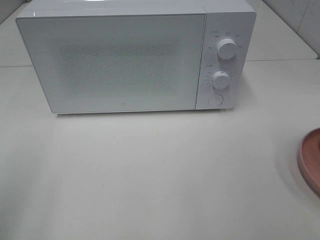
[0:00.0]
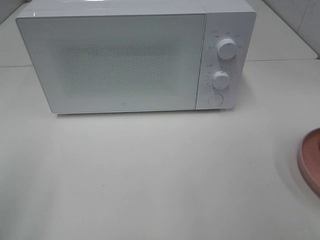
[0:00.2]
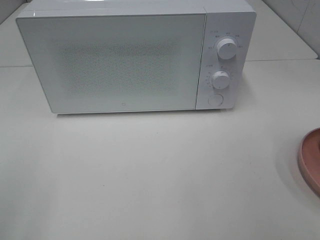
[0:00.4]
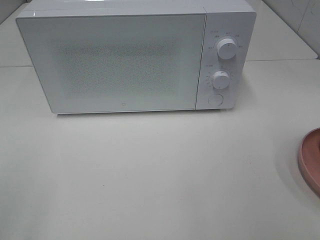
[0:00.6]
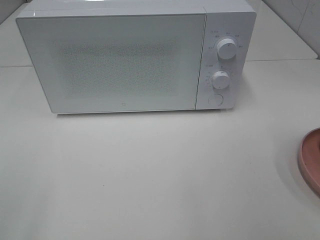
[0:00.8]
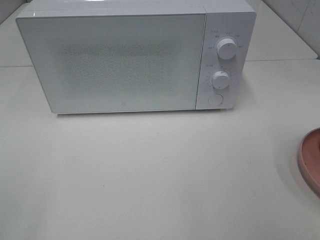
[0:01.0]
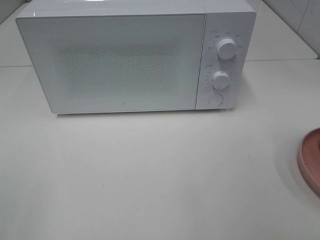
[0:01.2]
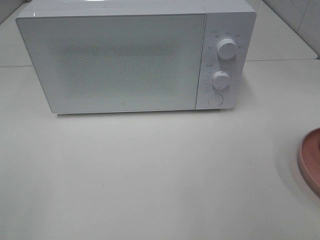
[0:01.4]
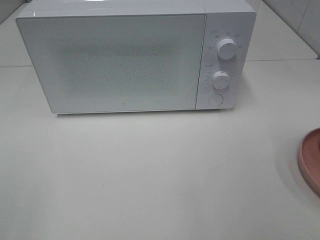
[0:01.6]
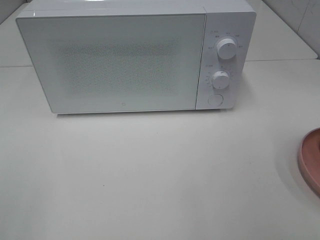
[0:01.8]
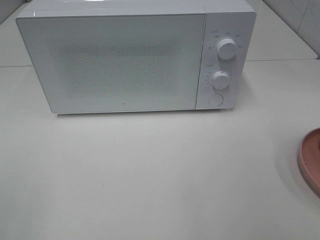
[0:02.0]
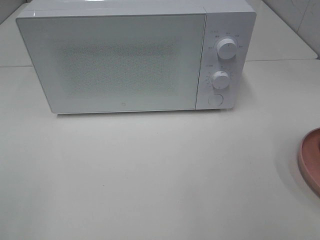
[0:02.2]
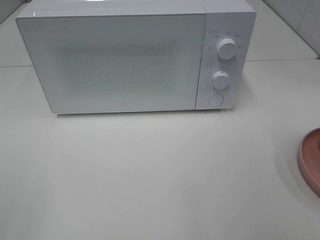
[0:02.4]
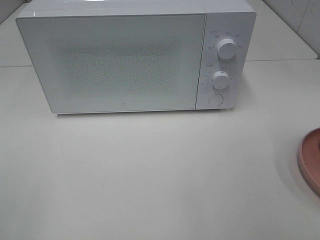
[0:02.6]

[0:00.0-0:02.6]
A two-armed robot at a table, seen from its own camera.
Task of the whole recording: Heat the burger.
0:01.2 to 0:02.6: Both grippers stay about where they are.

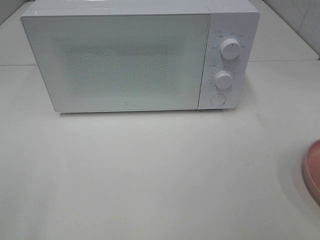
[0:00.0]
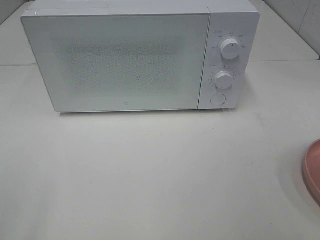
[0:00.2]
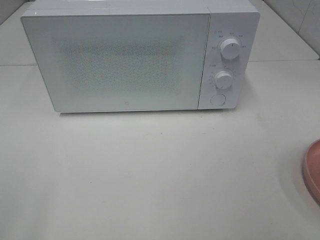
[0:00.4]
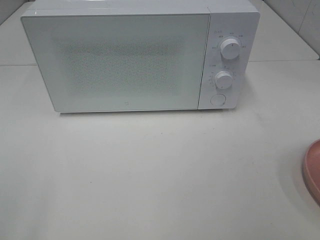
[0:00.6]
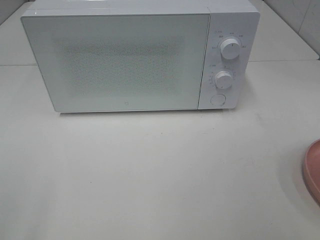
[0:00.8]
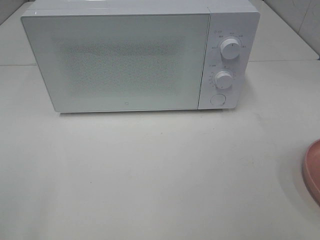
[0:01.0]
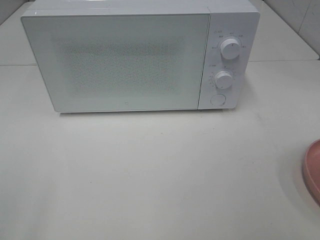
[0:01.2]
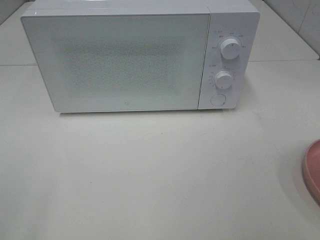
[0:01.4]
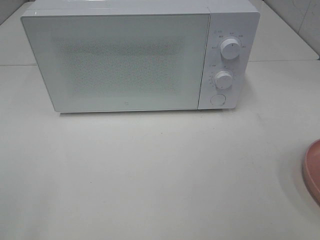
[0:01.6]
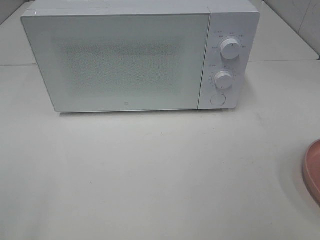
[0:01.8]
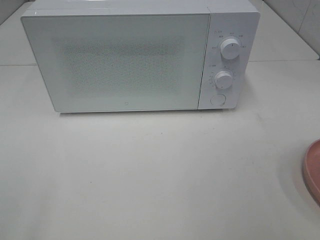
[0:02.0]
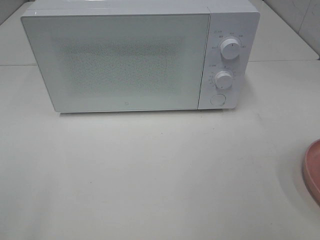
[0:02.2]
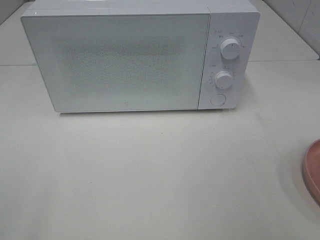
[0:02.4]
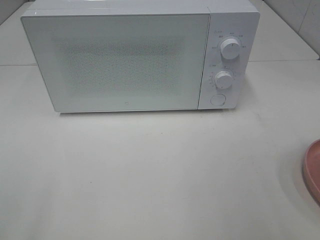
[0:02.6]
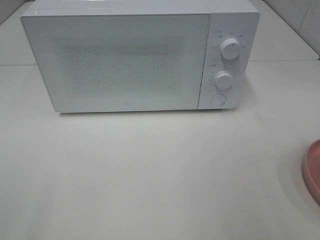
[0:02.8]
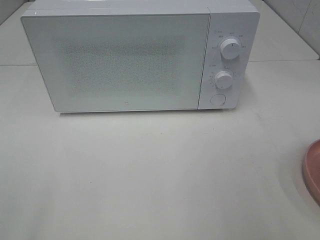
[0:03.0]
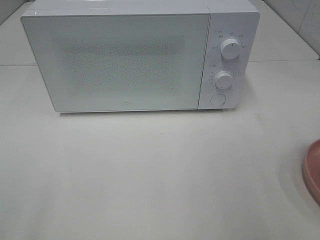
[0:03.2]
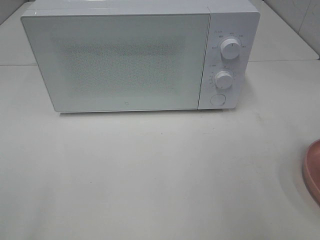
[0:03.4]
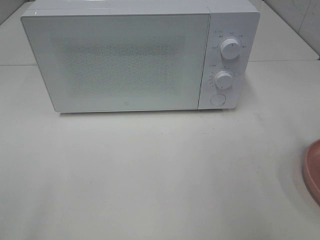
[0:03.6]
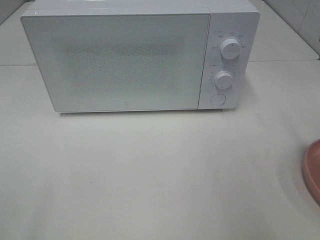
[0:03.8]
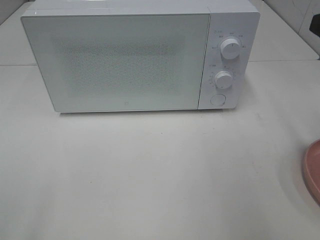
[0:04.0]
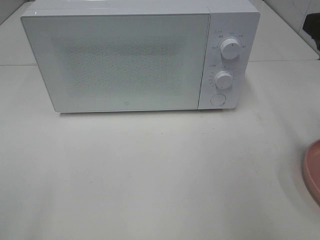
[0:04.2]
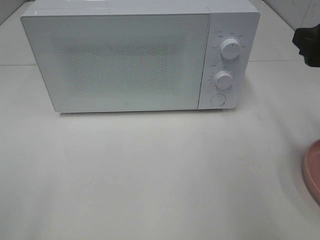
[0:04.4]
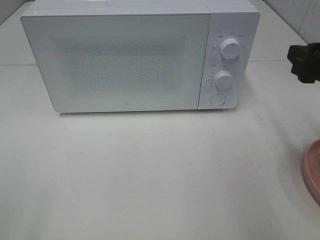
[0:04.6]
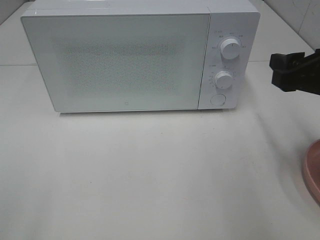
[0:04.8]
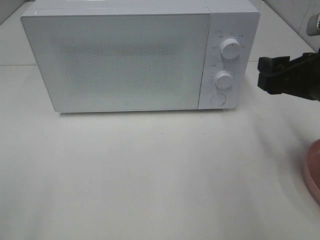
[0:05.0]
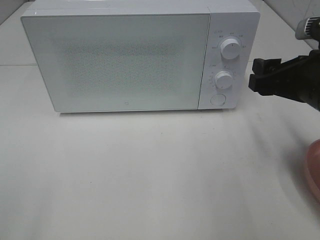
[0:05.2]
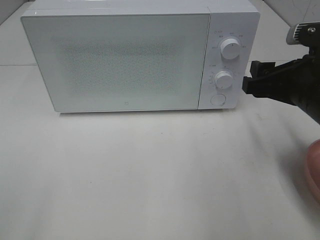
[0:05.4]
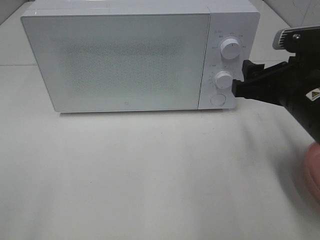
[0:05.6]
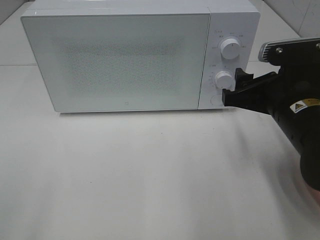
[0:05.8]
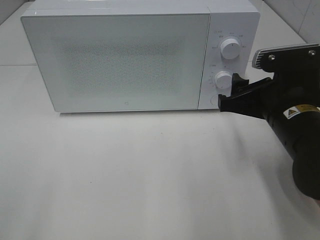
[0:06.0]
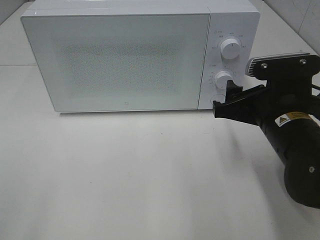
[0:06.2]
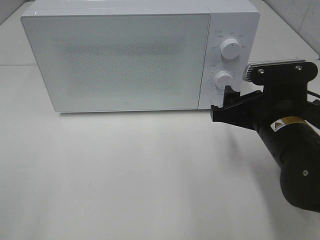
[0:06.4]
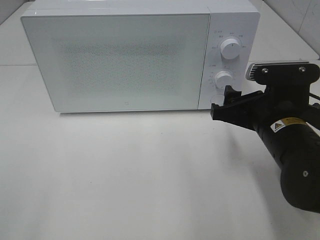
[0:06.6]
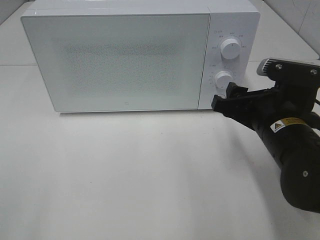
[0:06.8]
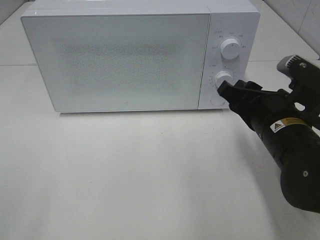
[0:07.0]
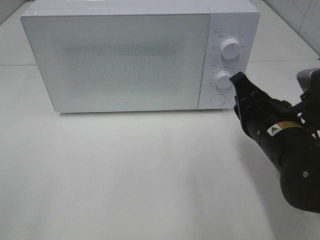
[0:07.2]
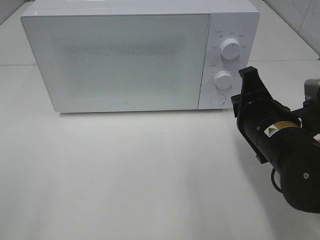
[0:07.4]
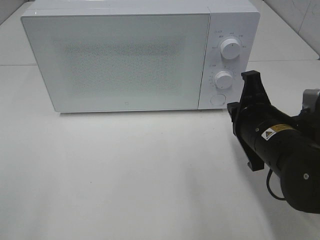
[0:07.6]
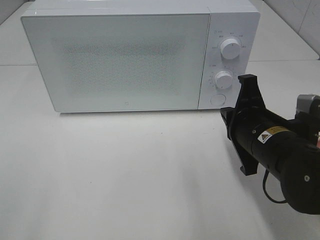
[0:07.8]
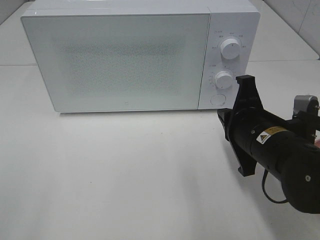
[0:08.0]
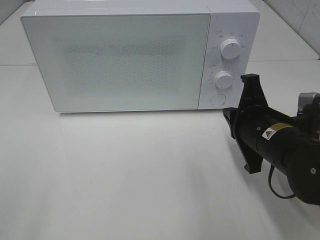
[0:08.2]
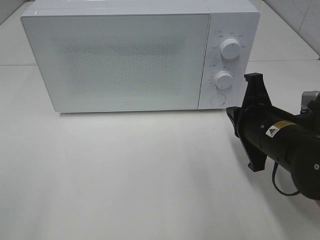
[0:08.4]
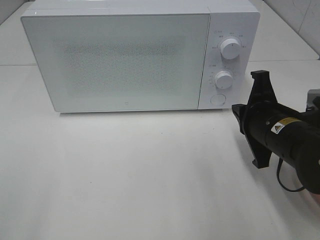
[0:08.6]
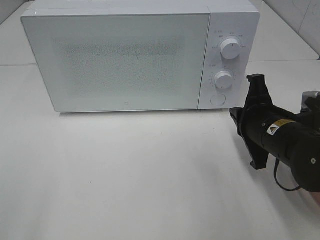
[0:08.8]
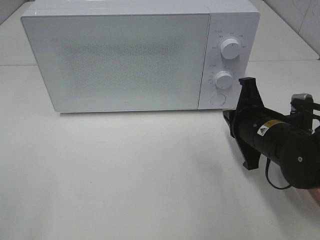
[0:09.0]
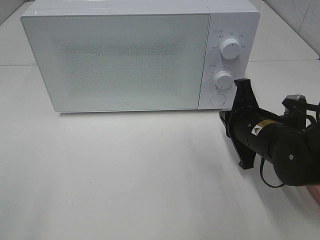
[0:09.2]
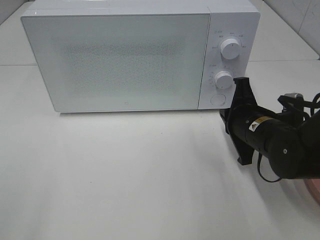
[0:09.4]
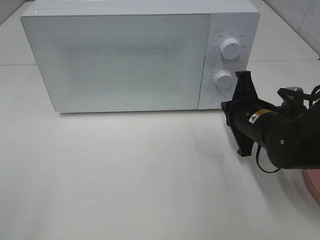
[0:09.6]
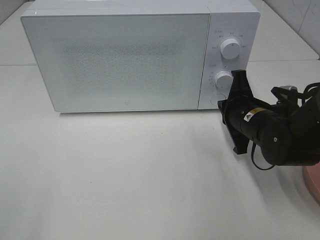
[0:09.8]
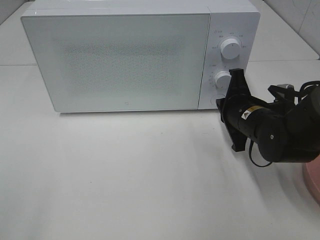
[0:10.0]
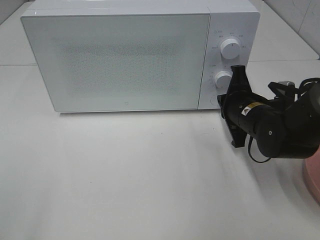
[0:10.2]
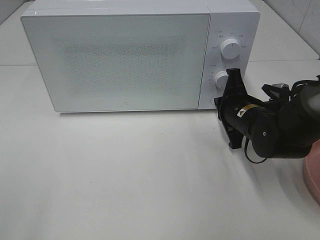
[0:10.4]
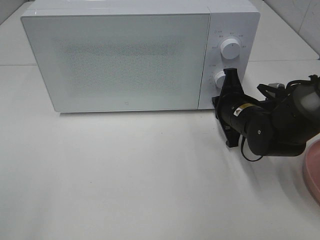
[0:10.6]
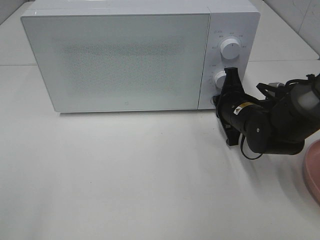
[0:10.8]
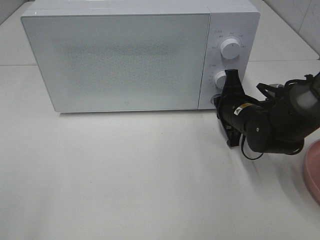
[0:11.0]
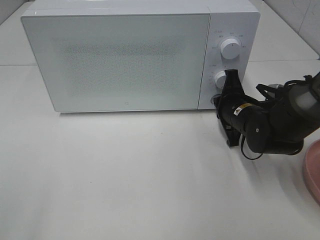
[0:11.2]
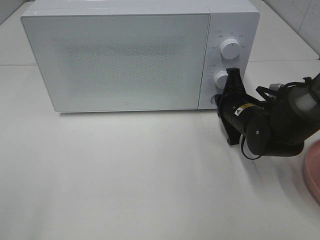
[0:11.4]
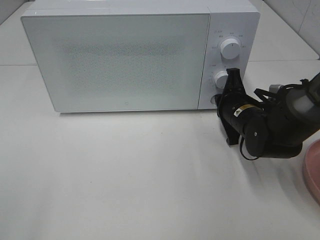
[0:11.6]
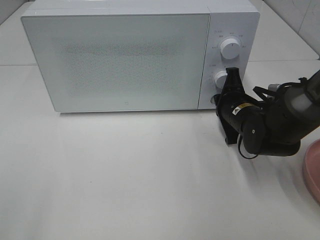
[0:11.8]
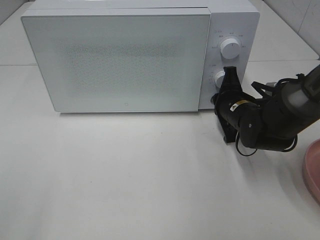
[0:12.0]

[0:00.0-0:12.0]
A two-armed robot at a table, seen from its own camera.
Task of the whole recording: Heat the burger.
0:00.0 to 0:01.6: The two grippers keep their place.
0:03.0 to 0:04.4: The right gripper heads forward and downward, covering roughly 10 cm.
0:04.4 to 0:06.0: The right gripper moves to the left and downward, some 10 cm.
0:06.0 to 0:07.6: The right gripper closes up.
0:07.6 to 0:09.0: The grippers move only a little.
0:09.0 to 0:10.4: The right gripper moves forward, some 5 cm.
0:10.4 to 0:12.0: The grippers make only small movements.

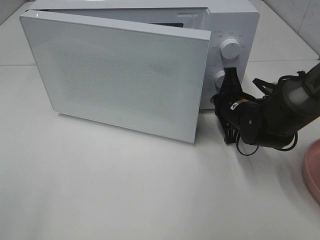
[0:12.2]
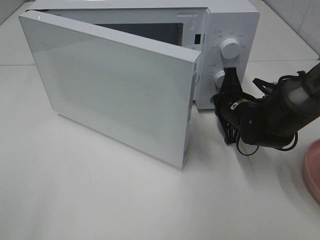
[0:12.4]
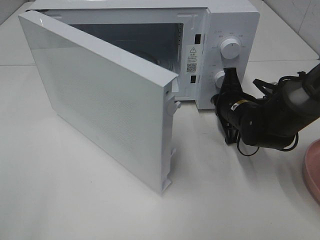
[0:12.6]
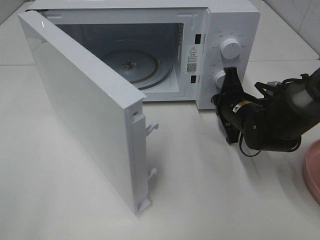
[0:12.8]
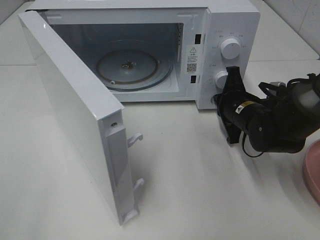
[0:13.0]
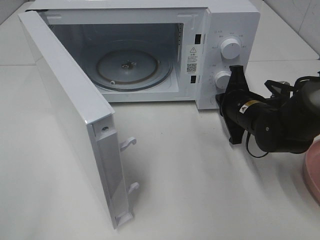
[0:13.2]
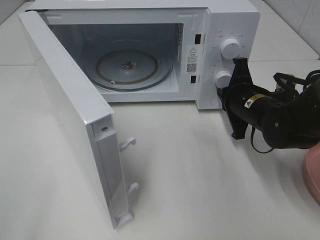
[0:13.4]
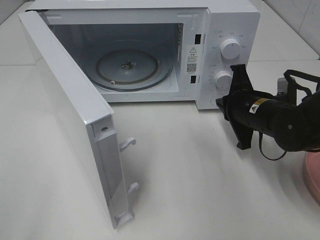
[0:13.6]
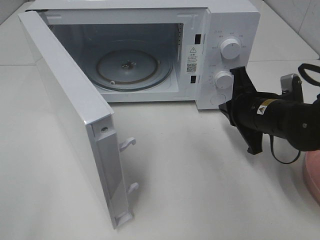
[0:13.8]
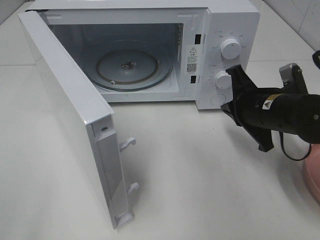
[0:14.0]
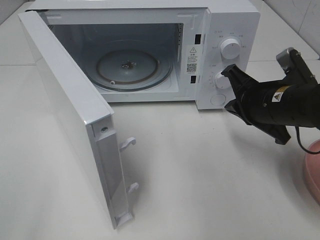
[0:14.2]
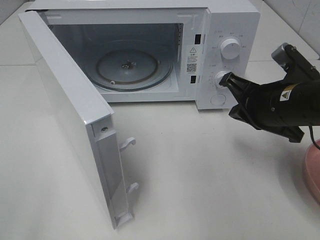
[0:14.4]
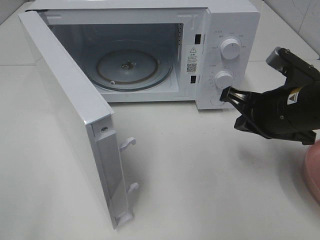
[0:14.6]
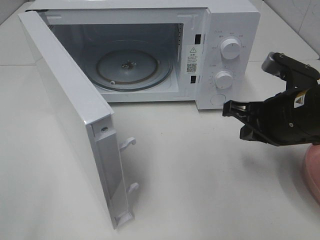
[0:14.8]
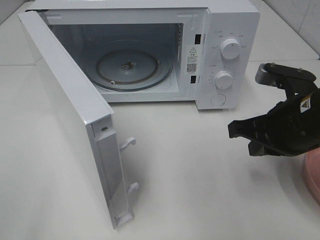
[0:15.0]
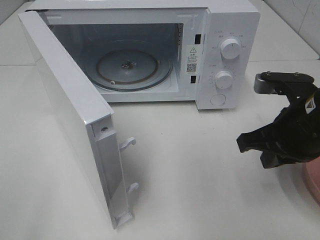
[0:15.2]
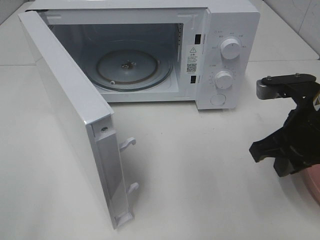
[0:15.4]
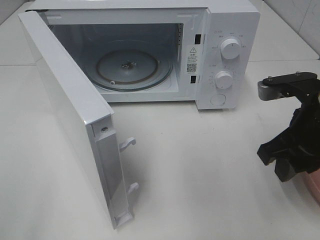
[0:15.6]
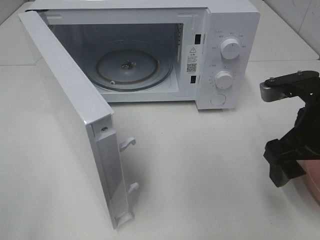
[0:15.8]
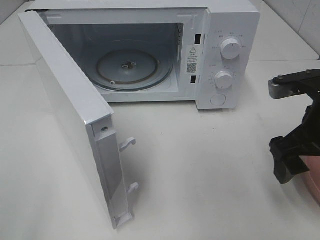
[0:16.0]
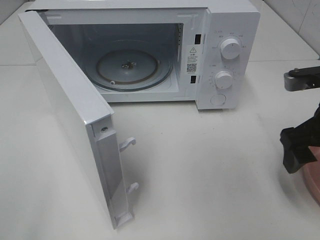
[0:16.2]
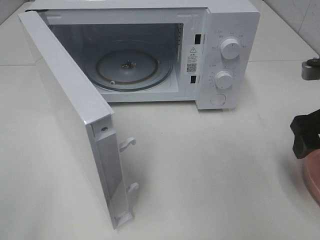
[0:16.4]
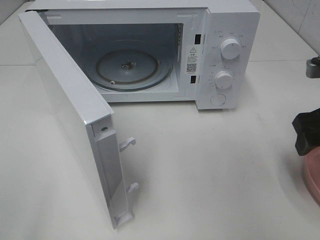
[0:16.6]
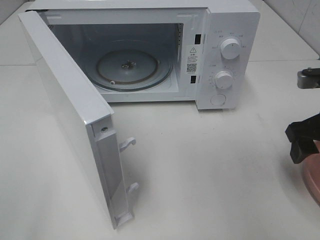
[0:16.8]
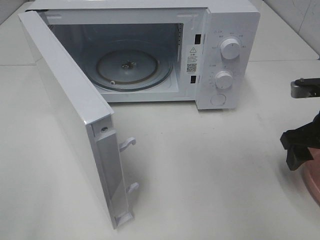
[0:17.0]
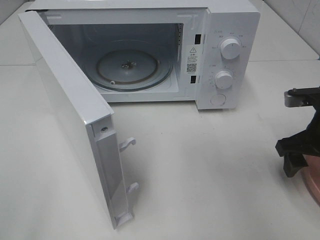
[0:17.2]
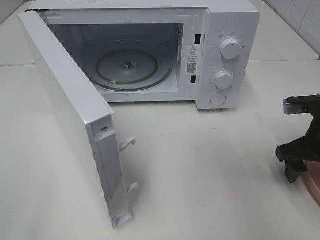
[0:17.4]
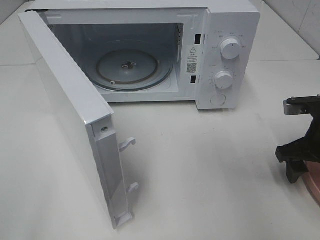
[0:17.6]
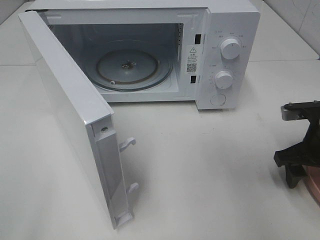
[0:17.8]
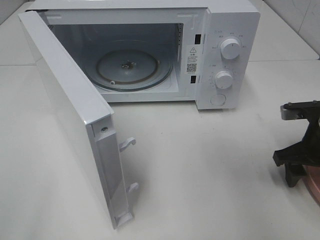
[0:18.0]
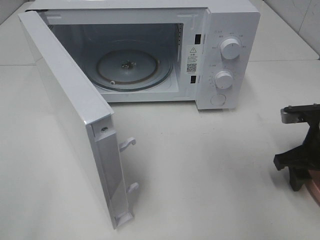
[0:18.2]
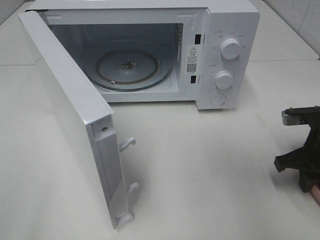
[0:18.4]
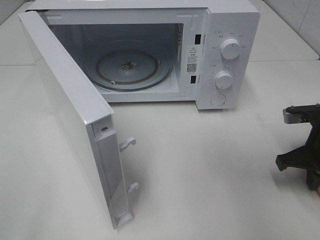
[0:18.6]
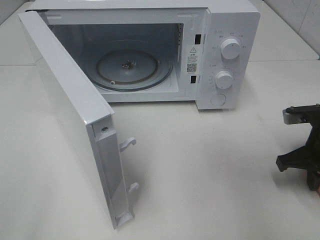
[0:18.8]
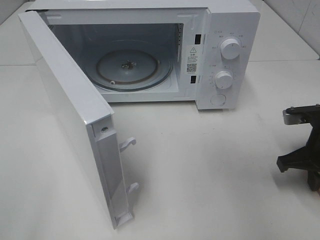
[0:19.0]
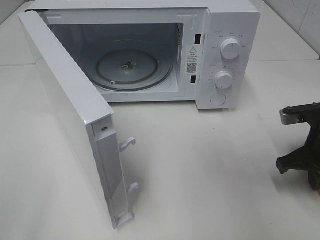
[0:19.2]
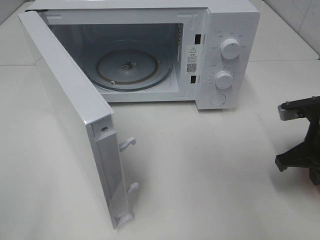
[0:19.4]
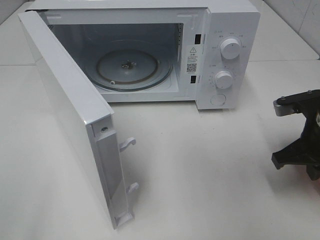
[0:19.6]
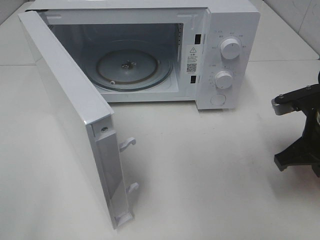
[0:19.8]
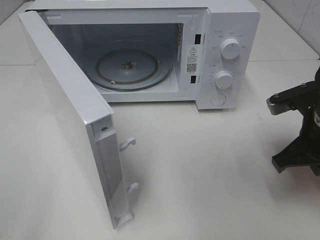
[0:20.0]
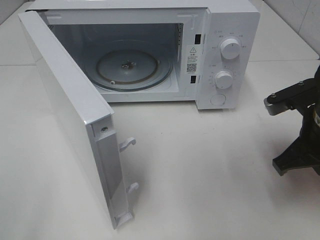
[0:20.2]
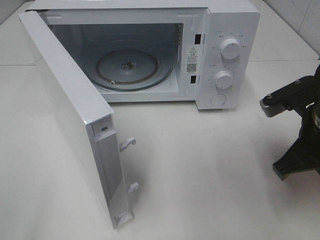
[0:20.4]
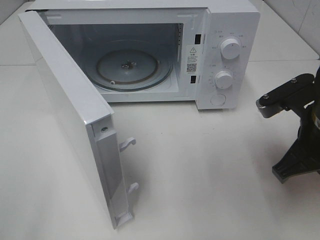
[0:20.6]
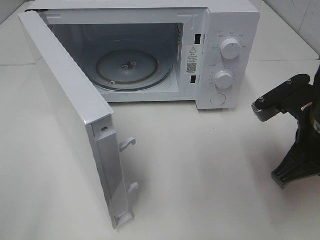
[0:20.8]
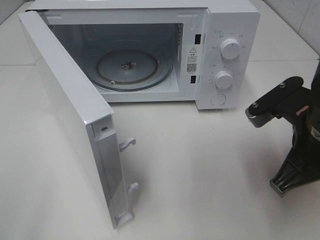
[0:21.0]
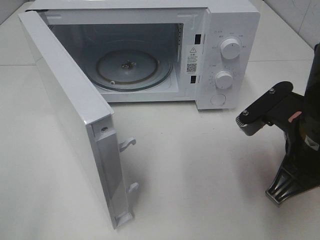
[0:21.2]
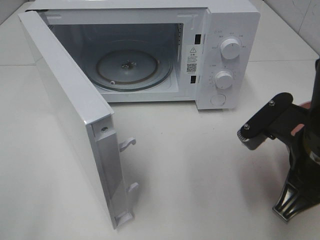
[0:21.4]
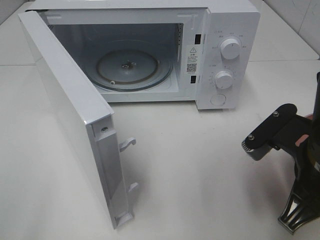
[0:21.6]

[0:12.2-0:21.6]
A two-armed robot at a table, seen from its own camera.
Task of the whole recording: Heat the burger.
Step, 0:13.4 to 0:18.8: Right hand: grab the plate with the hamburger.
0:12.2 to 0:13.8: The right gripper is displaced backward by about 5 cm.
0:13.8 to 0:15.4: The right gripper heads backward and upward, covering roughly 10 cm.
0:15.4 to 0:17.0: The right gripper is displaced to the right by some 5 cm, and opens its fingers.
0:17.0 to 0:18.4: The right gripper is displaced downward by about 5 cm, and closes its fingers.
0:18.4 to 0:20.0: The right gripper moves upward and to the left, approximately 10 cm.
0:20.0 to 0:21.6: The right gripper shifts roughly 10 cm backward and to the left.
